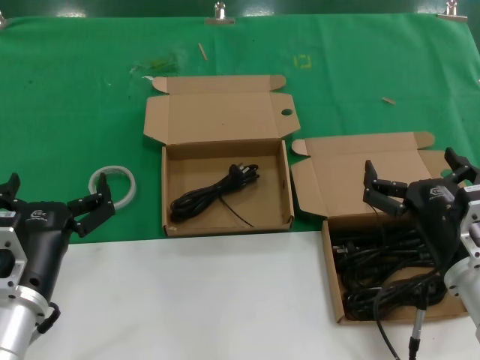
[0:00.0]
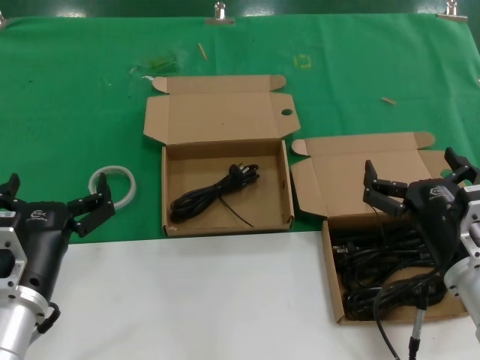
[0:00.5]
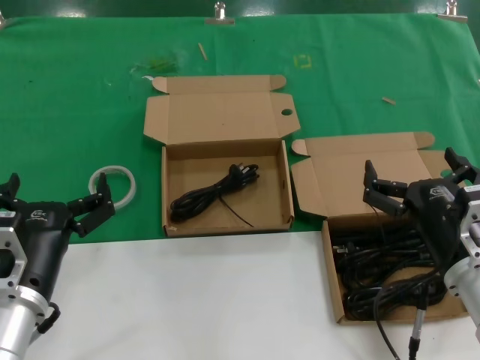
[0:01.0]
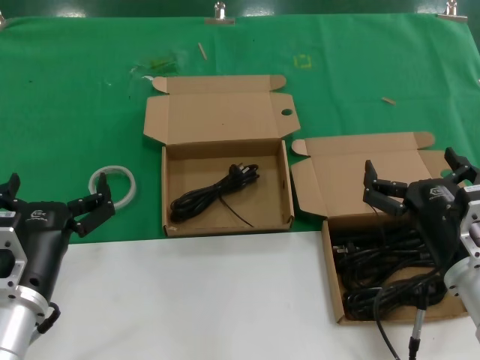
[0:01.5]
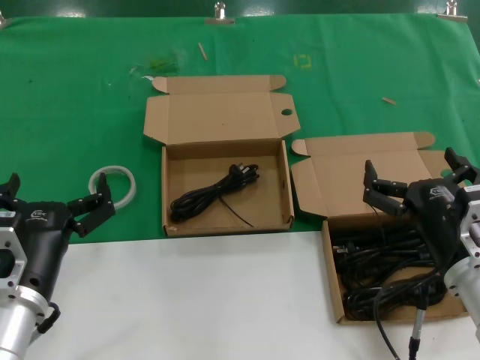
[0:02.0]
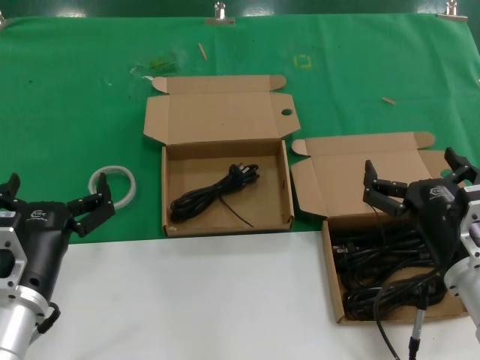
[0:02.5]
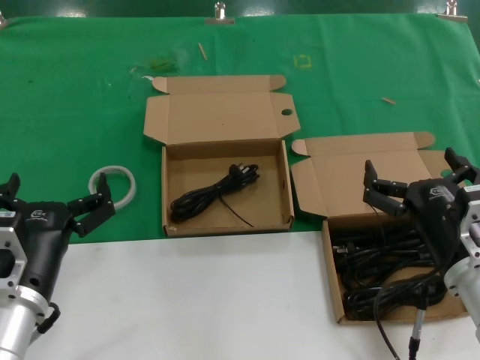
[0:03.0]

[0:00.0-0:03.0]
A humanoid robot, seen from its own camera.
Task of the whole recording: take the parts from the box containing them and put them into an empty box.
0.0 to 3.0 s: The two hands keep their place.

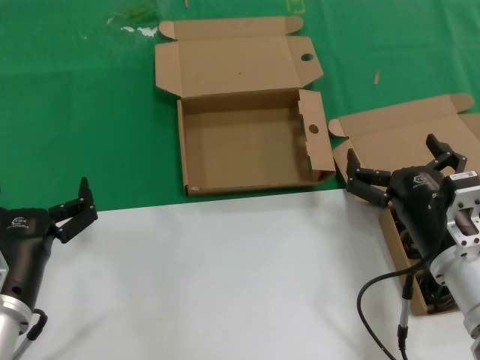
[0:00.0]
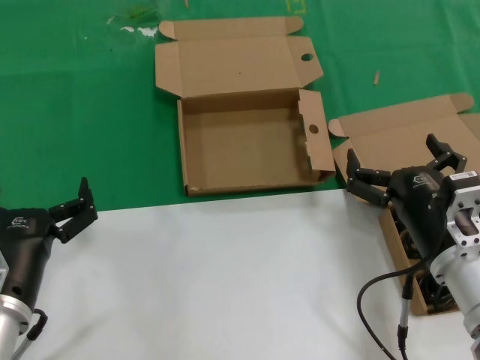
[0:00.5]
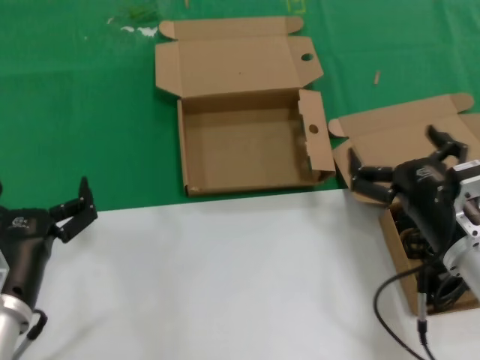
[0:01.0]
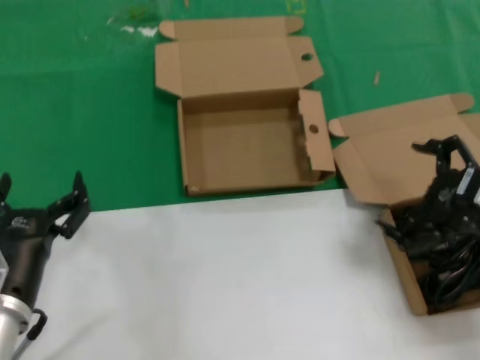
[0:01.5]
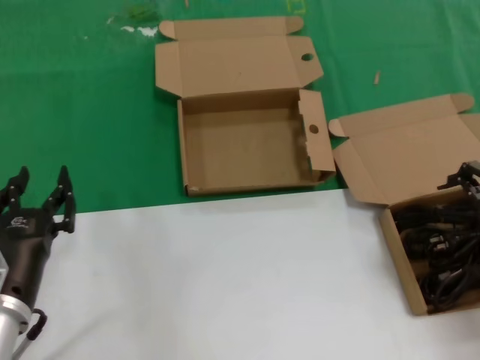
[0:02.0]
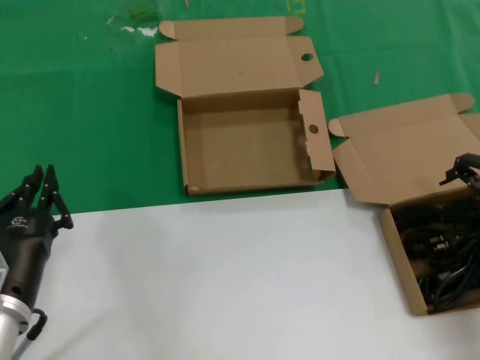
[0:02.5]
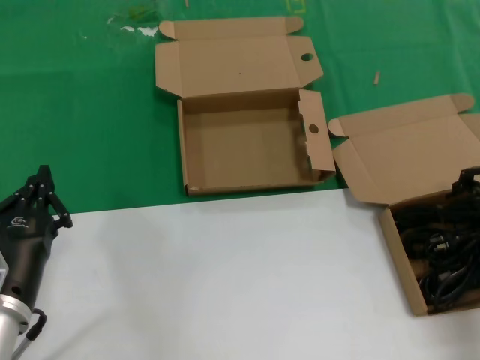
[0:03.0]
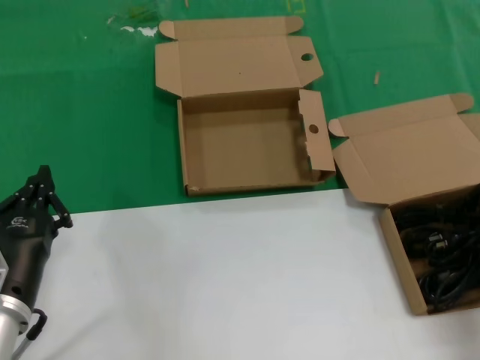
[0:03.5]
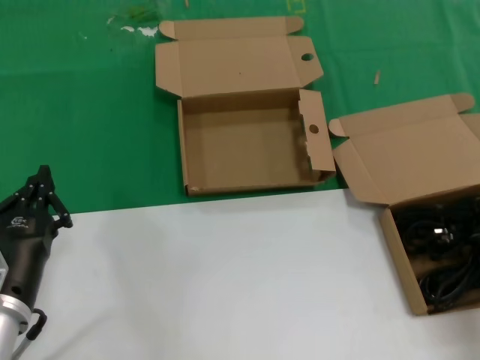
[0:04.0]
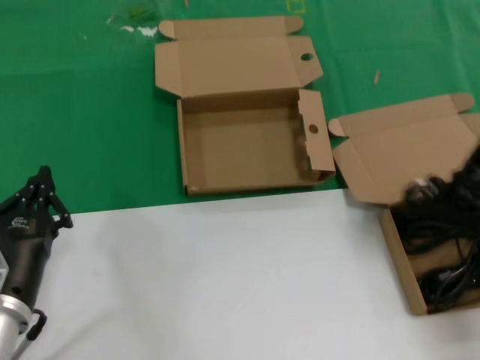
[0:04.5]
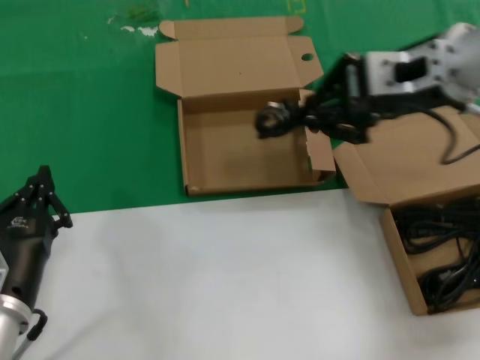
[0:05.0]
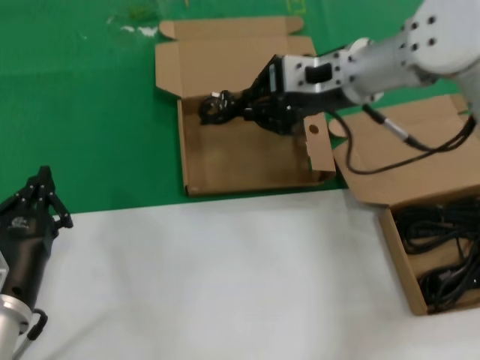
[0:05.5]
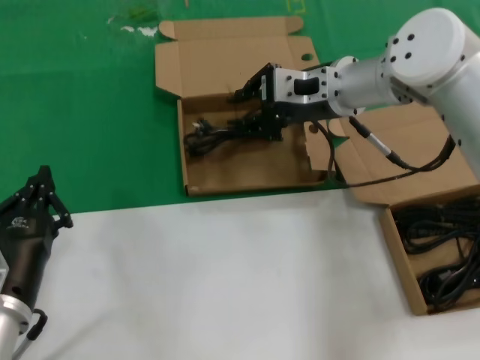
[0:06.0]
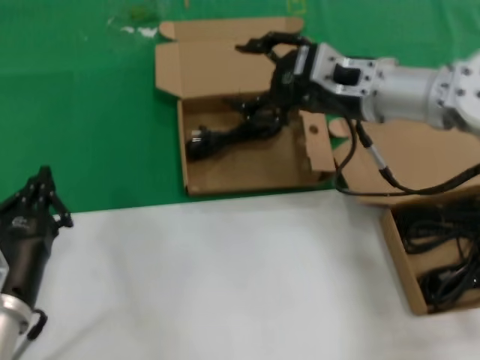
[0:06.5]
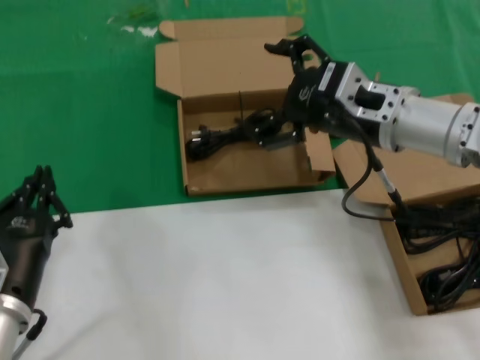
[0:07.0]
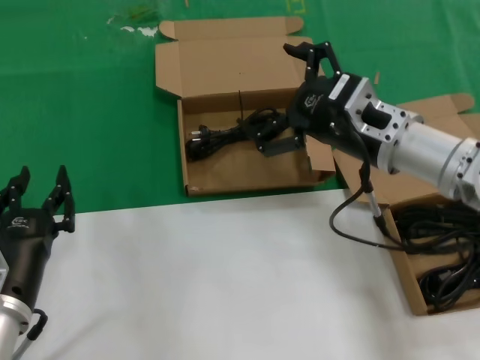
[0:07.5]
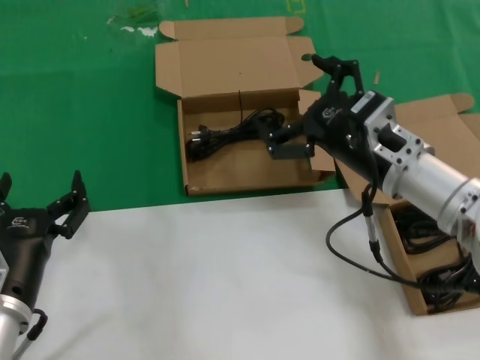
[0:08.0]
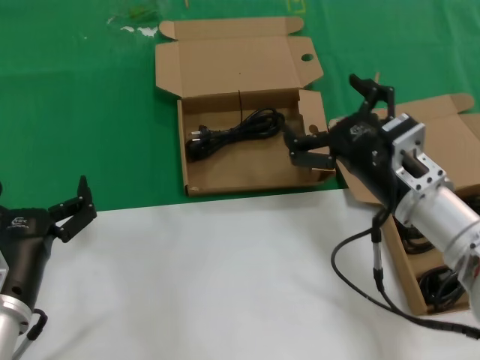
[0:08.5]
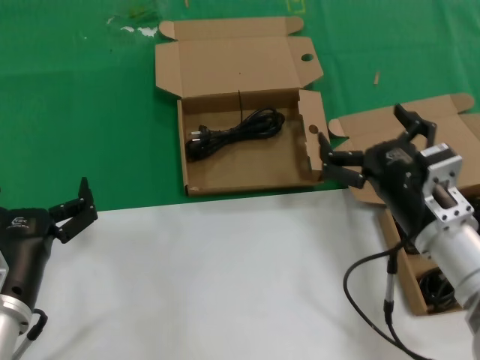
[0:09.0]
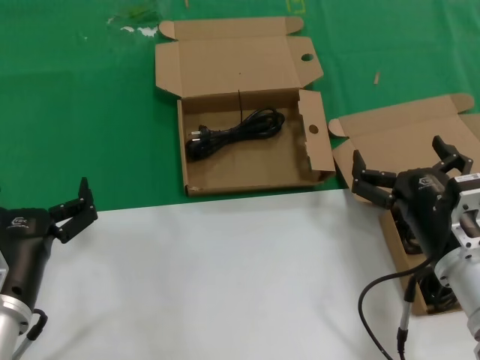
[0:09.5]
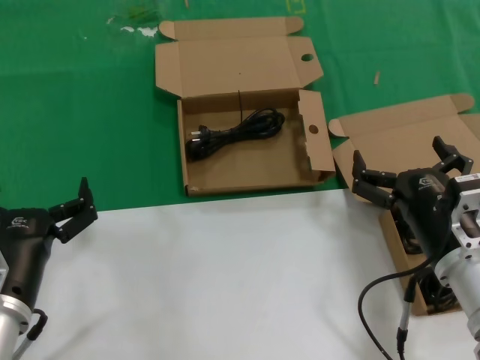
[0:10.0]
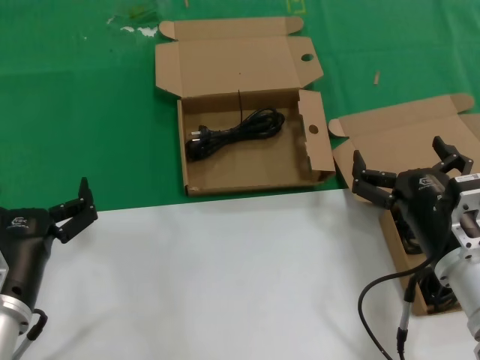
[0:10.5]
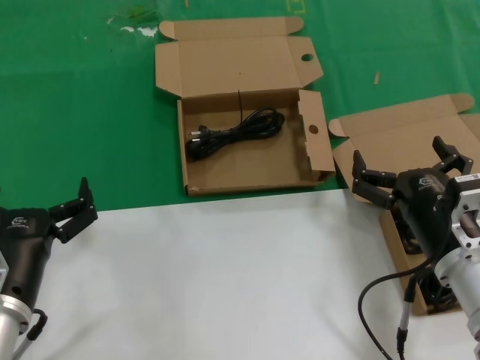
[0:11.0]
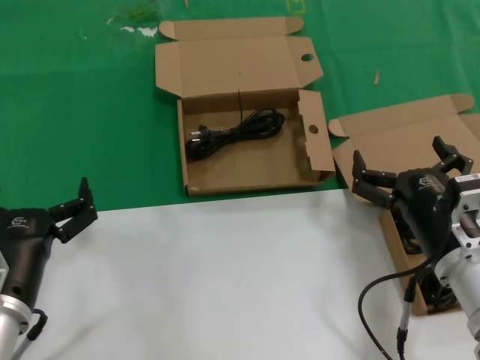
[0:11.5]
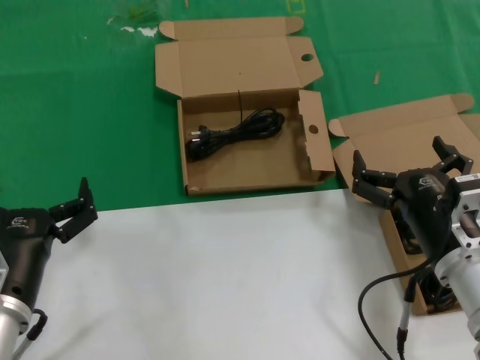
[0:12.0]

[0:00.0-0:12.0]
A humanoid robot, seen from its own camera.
Task of the whole recording: take the parts from the box containing them and put them into an empty box.
Step, 0.0 to 3.5 s: Grasp the data cable.
Step, 4.0 to 6.0 s: Place the data cable in the another box.
0.0 to 2.0 s: The right hand goes roughly 20 cm upward and to the right.
2.0 to 4.0 s: The right hand changes place by about 5 cm.
4.0 to 6.0 s: The right hand is displaced to the left and forward by approximately 25 cm.
6.0 to 8.0 s: The right hand goes approximately 15 cm backward and downward.
8.0 to 10.0 s: The right hand is displaced backward and downward by some 15 cm.
10.0 to 12.0 s: Both hands stay put.

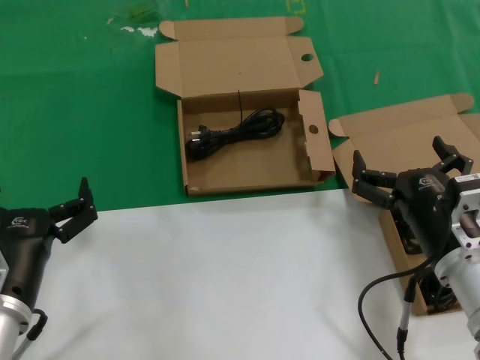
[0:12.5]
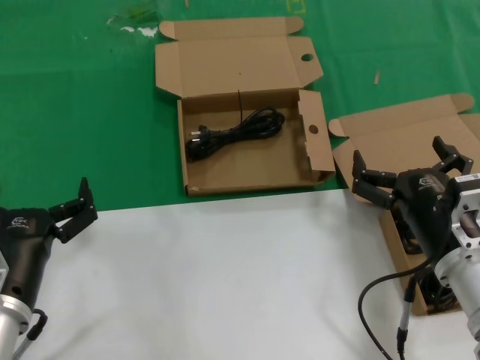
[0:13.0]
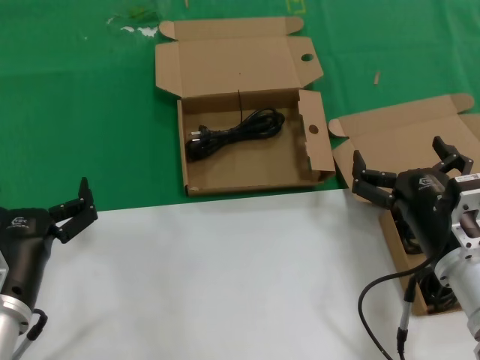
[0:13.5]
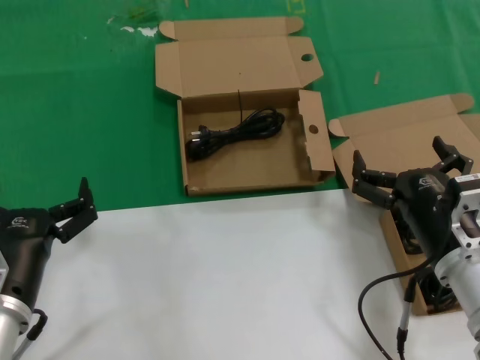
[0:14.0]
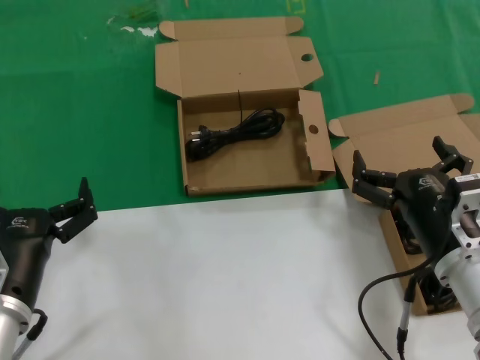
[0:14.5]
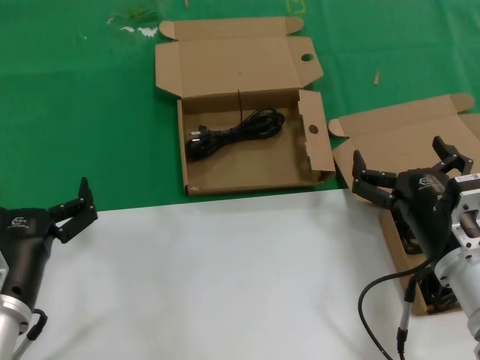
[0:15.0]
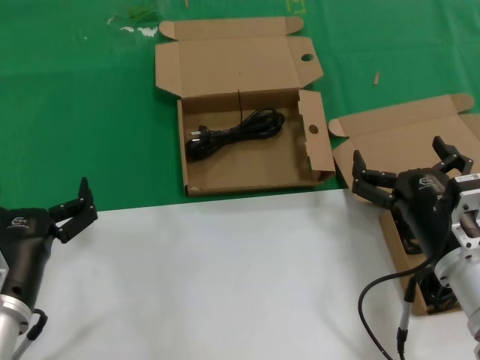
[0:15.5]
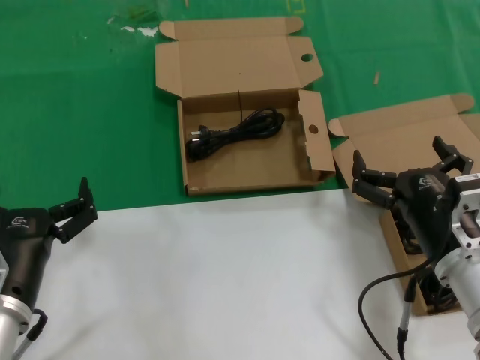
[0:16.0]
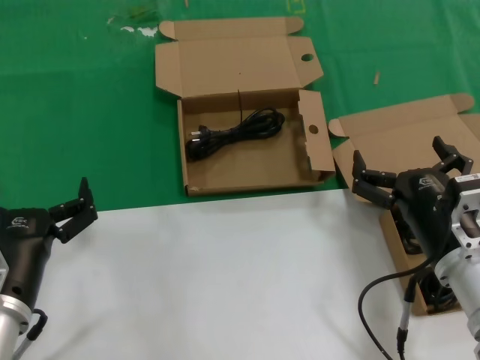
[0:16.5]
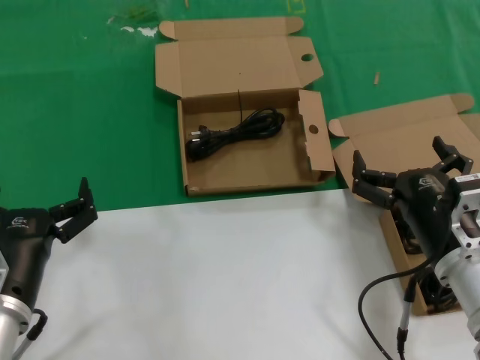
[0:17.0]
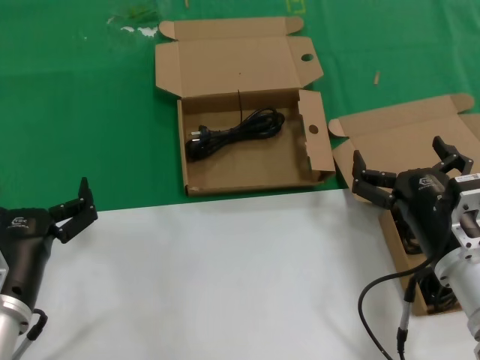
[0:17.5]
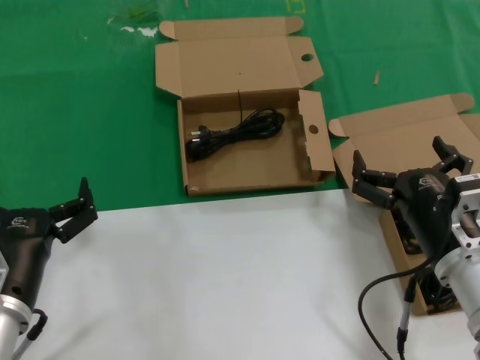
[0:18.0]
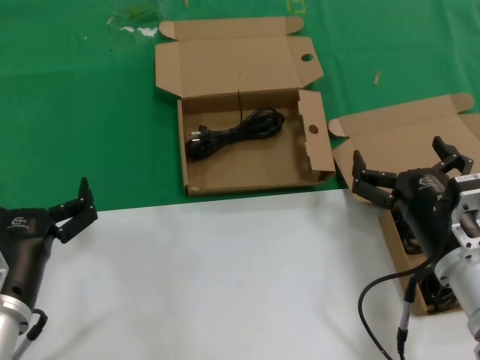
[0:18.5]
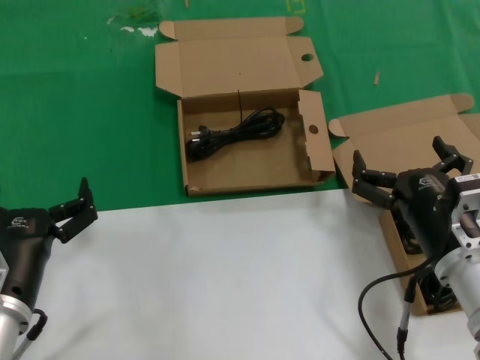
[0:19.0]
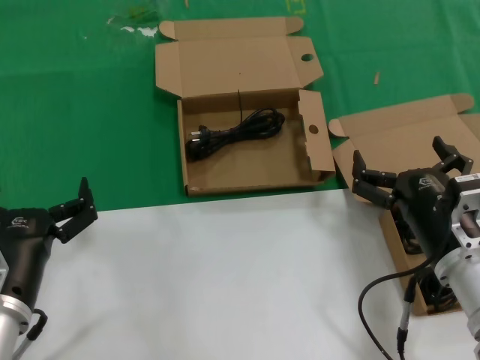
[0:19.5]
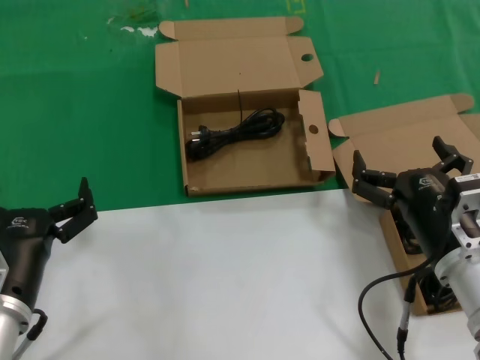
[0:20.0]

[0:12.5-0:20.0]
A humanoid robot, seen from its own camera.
Task of the whole recording: take the parts from the box containing them and put them into an empty box.
12.5 to 20.0 s: Both hands stay put.

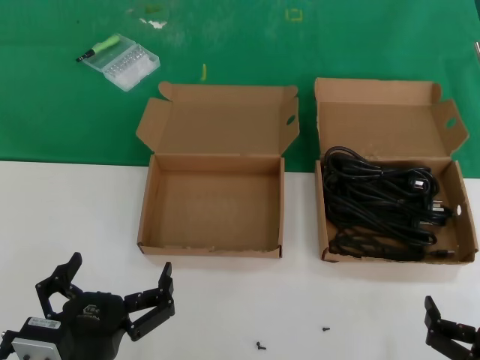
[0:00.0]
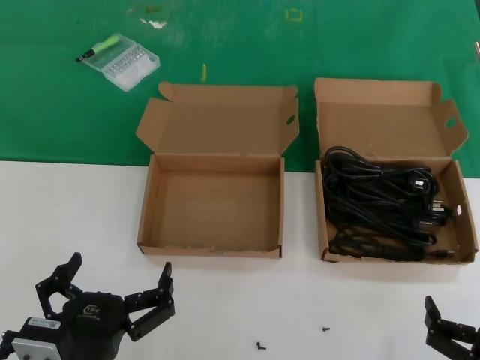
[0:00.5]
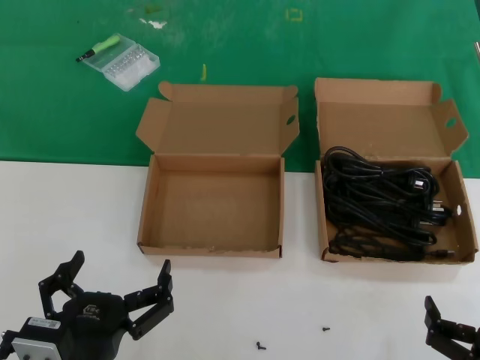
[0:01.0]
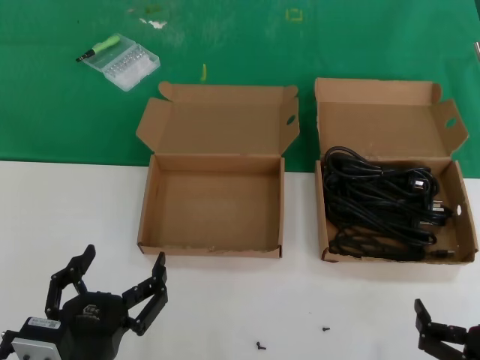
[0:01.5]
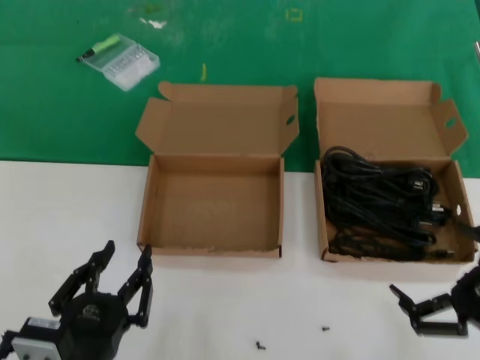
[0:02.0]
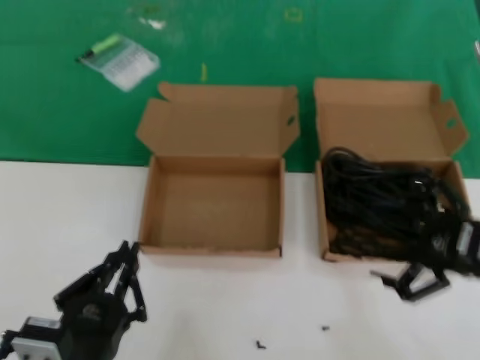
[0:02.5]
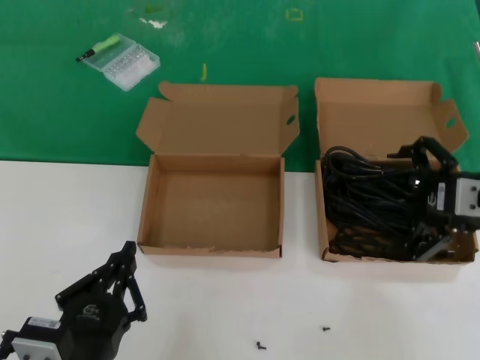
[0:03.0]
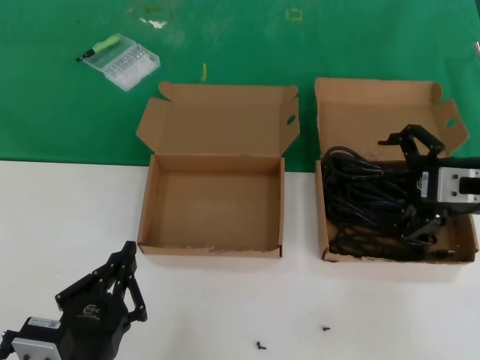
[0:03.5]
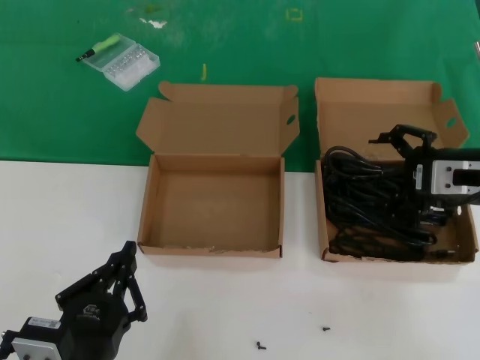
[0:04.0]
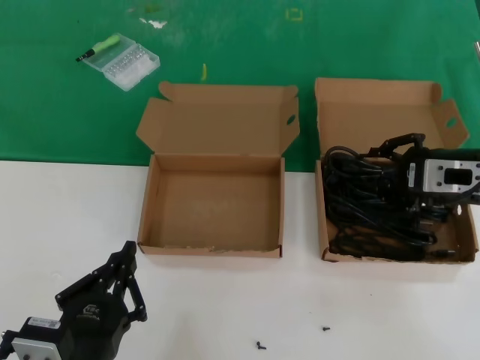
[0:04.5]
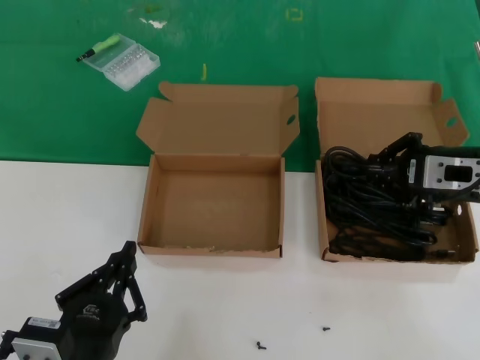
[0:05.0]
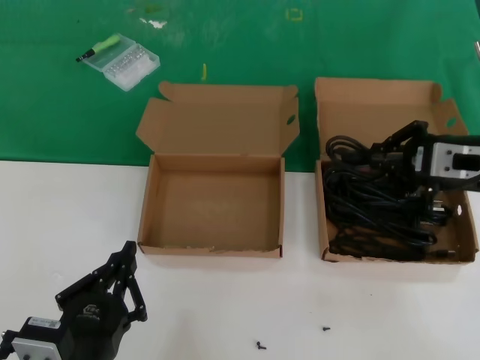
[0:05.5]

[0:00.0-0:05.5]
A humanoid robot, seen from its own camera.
Task of the whole recording: take the parts from the box containing them and put them into an empty box.
Step, 0.0 to 5.0 s: Grasp the data cable.
0.0 to 2.0 s: The right hand heads upward, covering some 10 cm.
2.0 to 3.5 s: The right hand moves forward and upward, approximately 25 cm.
3.5 to 5.5 s: The hands move only a little.
